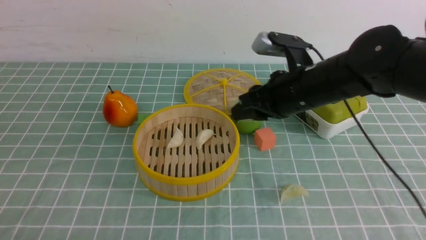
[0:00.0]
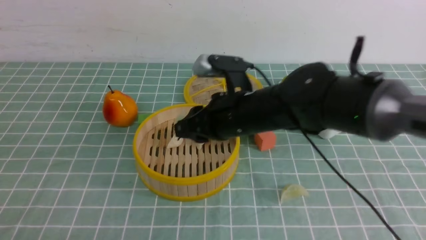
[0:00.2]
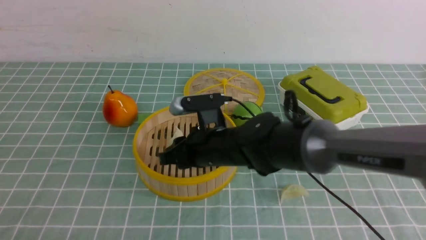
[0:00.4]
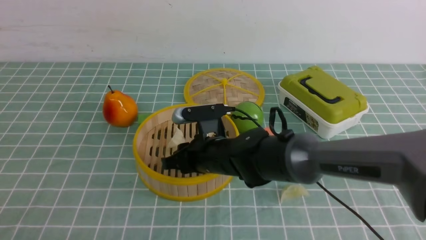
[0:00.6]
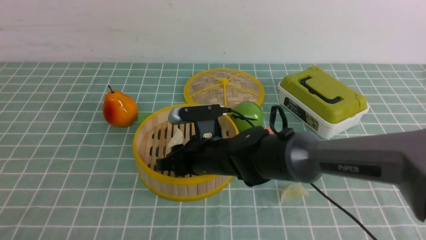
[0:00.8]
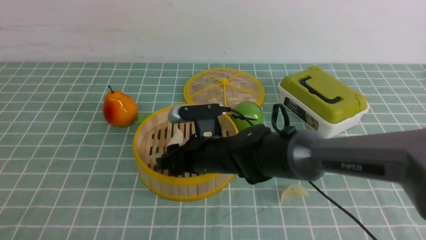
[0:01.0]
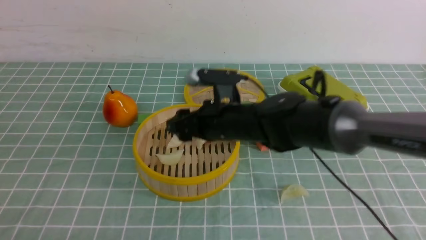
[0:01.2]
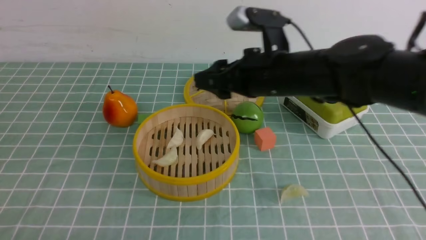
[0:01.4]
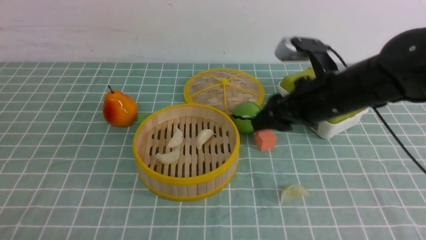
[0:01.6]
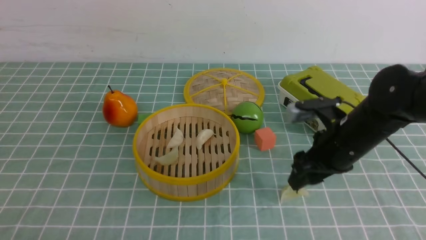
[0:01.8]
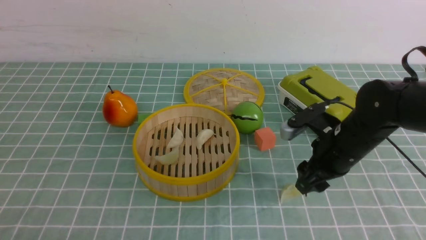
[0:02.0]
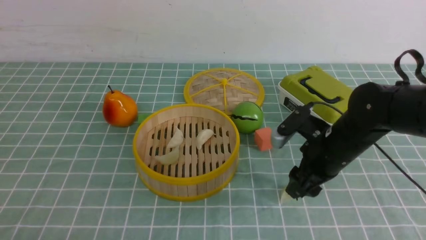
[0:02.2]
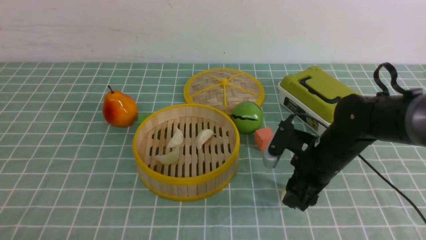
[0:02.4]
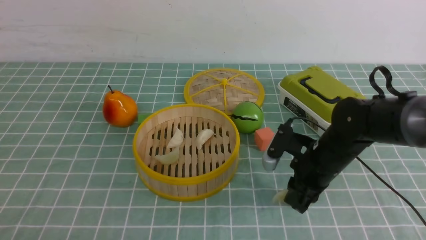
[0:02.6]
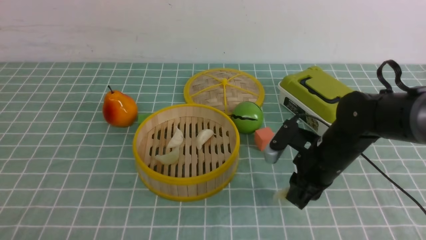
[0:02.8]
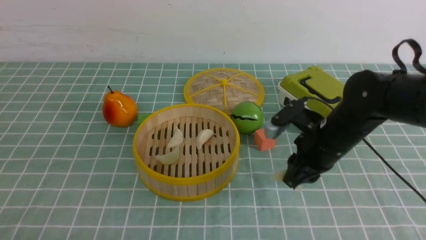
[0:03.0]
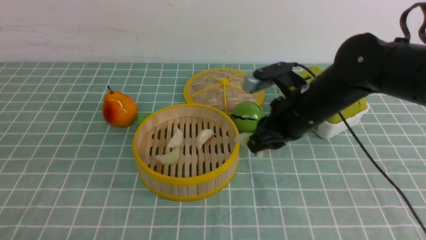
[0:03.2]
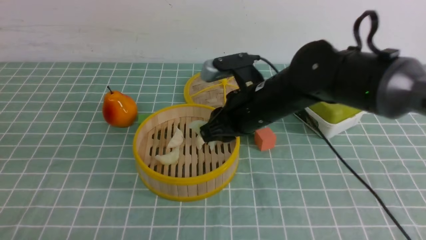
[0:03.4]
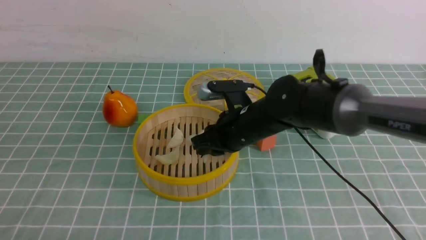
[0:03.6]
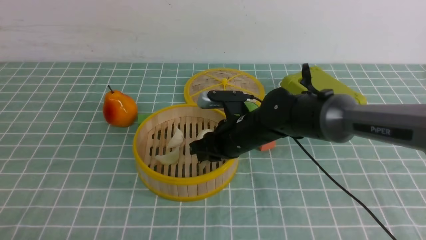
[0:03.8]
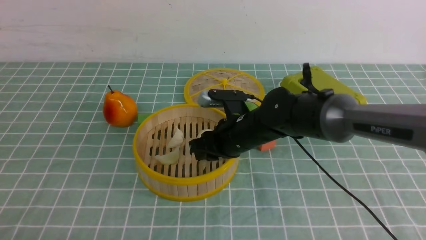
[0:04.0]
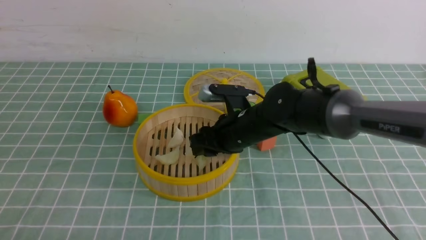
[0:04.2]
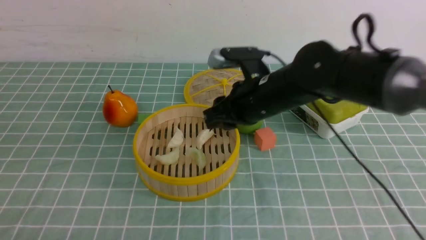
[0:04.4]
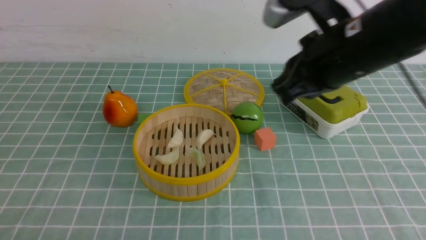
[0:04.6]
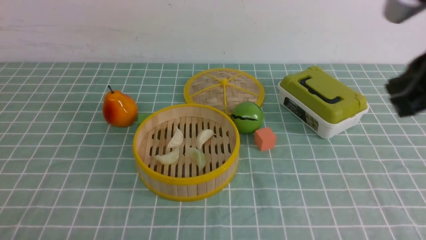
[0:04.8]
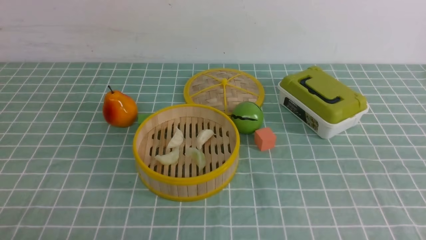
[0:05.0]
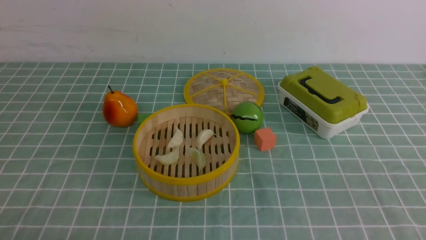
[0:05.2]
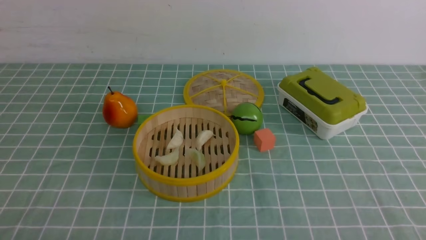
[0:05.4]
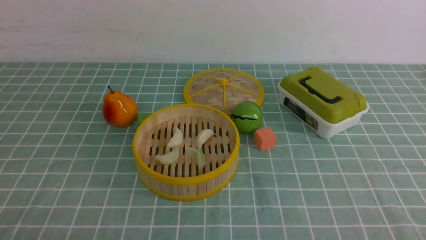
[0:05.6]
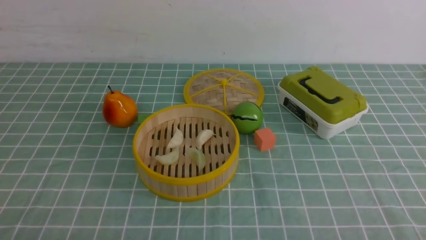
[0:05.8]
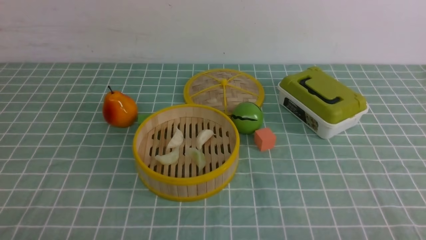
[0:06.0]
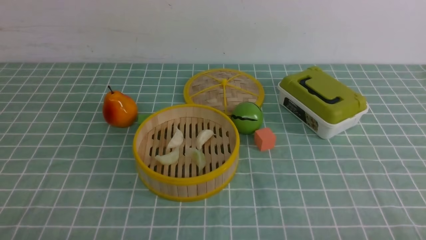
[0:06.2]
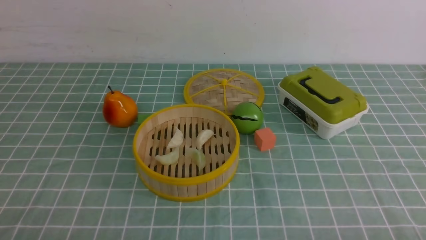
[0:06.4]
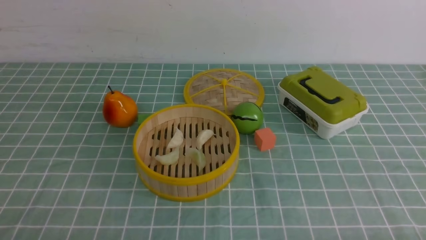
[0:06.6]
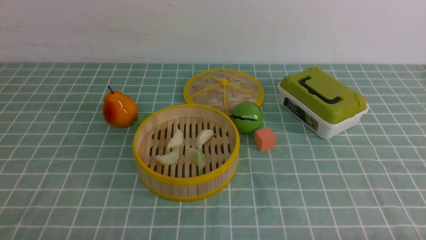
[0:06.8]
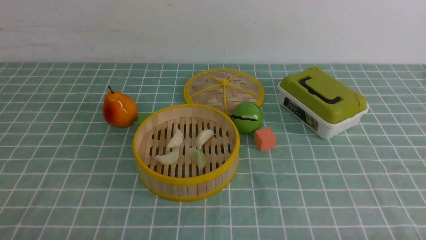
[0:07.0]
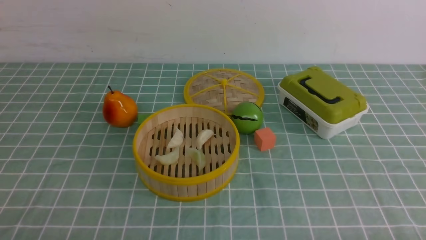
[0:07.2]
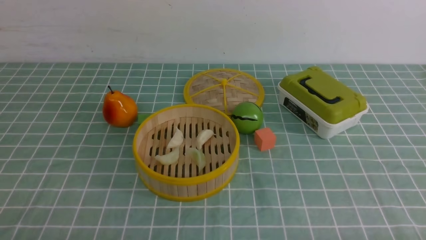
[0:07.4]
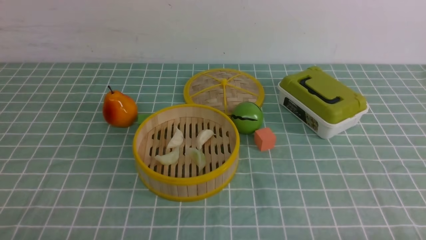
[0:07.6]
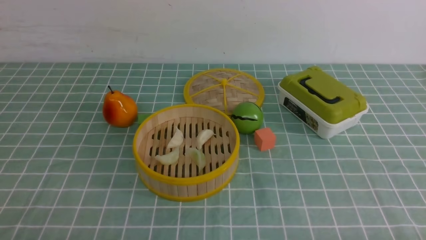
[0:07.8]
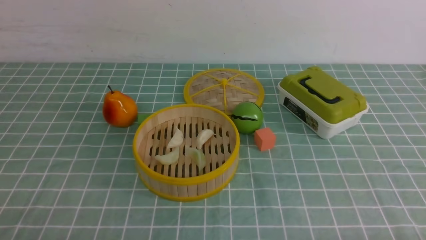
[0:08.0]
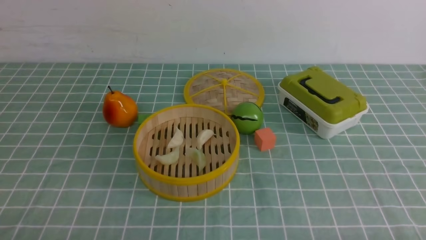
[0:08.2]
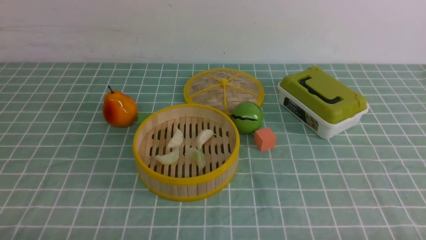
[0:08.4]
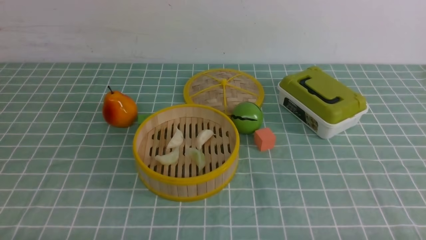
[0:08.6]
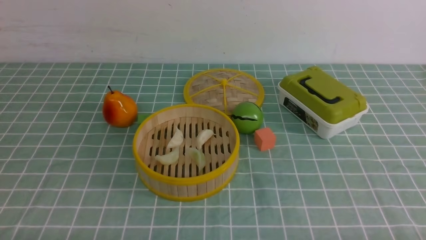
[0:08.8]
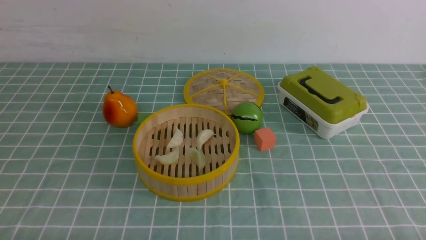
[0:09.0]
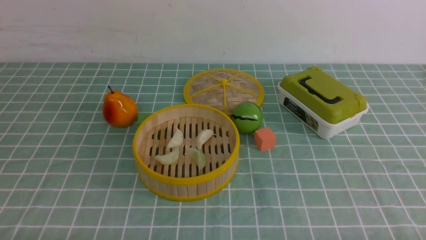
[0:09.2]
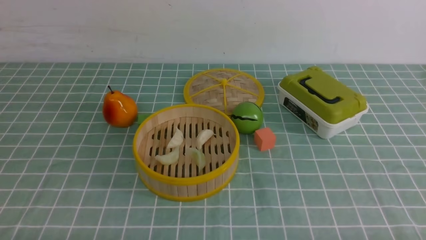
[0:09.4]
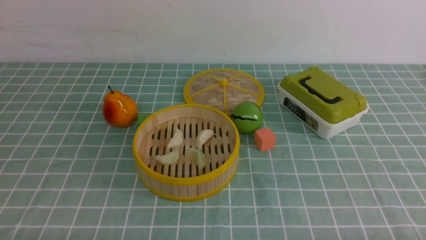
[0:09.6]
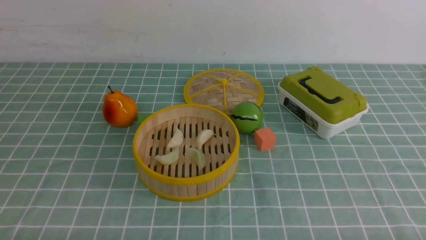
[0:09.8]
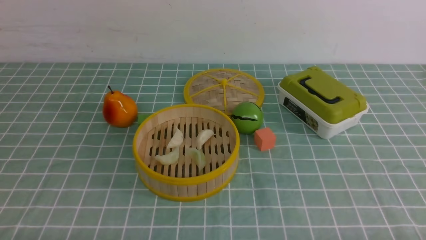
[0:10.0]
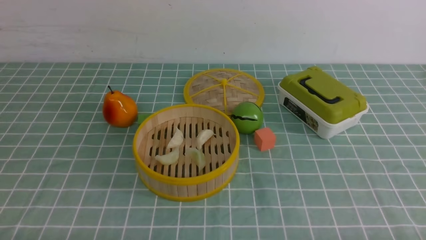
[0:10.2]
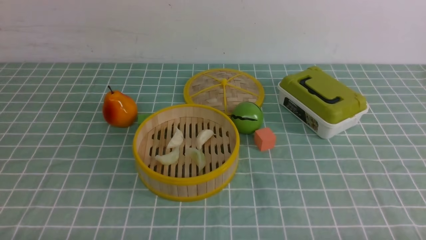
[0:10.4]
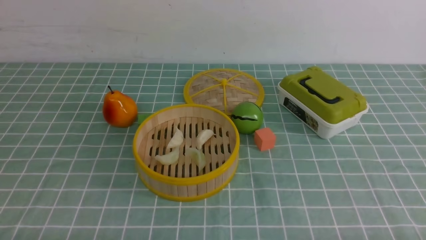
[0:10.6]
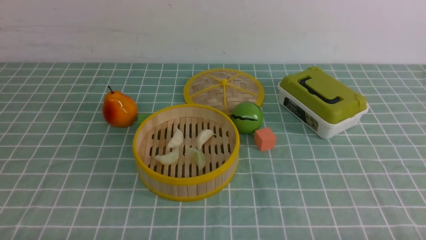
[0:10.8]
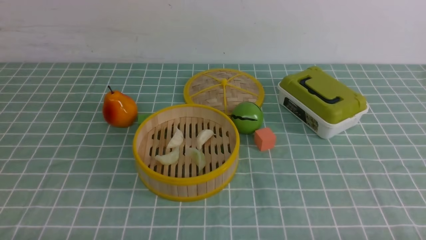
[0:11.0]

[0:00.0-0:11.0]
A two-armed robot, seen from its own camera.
Task of the whole recording: put the dumplings into the steamer on the table with the blue tablecloth.
Step, 0:00.0 to 0:01.2: use the right arm to put the dumpling into the steamer.
Step, 0:01.4 to 0:02.4: use the right arm to grab a dumpling.
Step, 0:02.8 to 0:04.2: use the right arm to put the dumpling into the steamer.
0:00.0 to 0:01.6: The right gripper travels to the left and back again, some 10 cm each way, and opens its fingers.
0:01.6 to 0:03.2: The right gripper goes downward and returns, some 10 cm each way, and closes.
0:03.2 to 0:04.8: The right gripper shifts about 25 cm backward, upward and to the right, and closes its fingers.
0:04.8 to 0:06.2: The right gripper shifts approximately 25 cm downward and backward.
0:09.4 to 0:11.0: Both grippers stay about where they are.

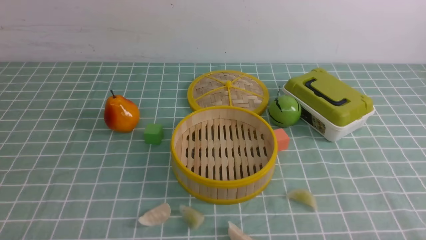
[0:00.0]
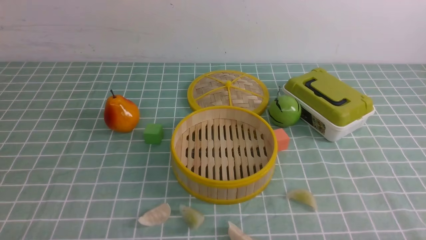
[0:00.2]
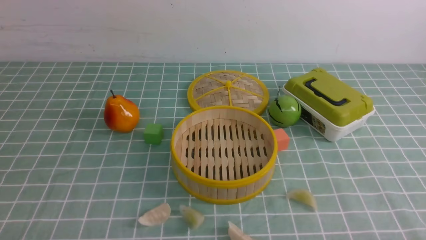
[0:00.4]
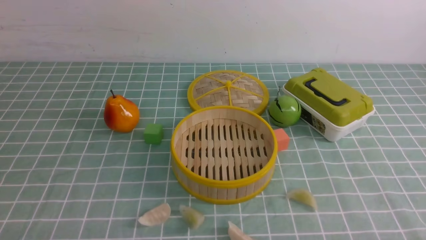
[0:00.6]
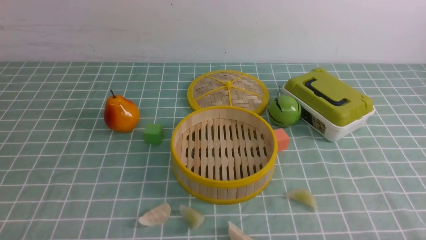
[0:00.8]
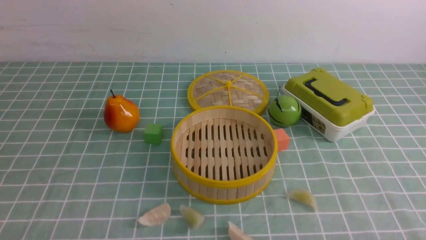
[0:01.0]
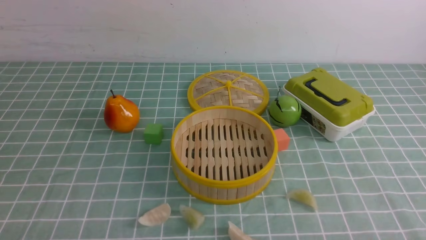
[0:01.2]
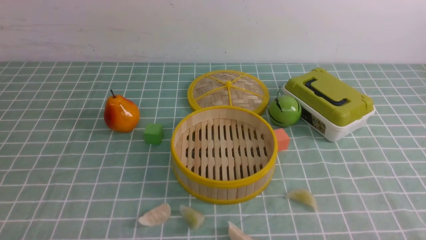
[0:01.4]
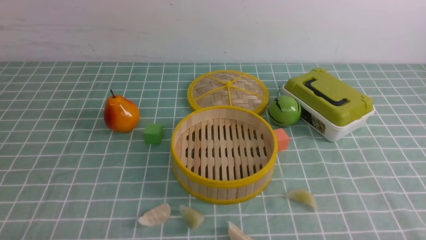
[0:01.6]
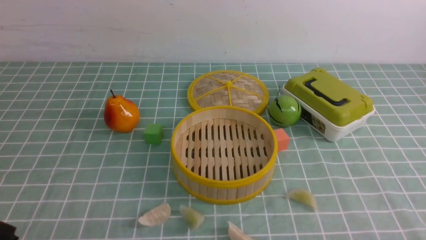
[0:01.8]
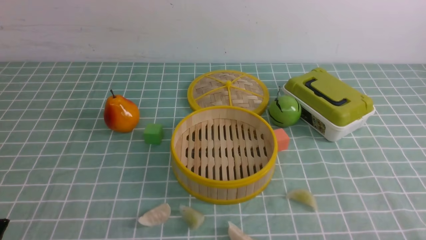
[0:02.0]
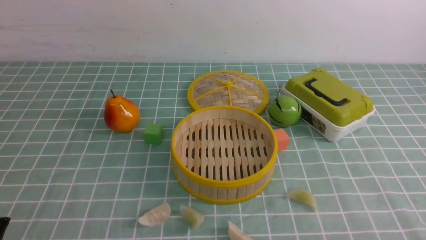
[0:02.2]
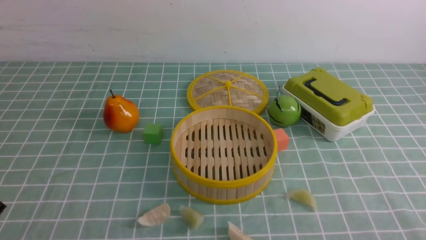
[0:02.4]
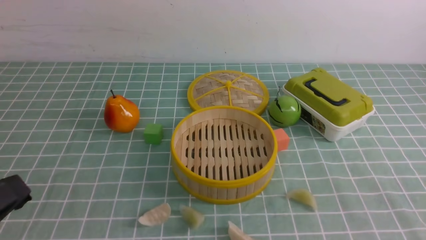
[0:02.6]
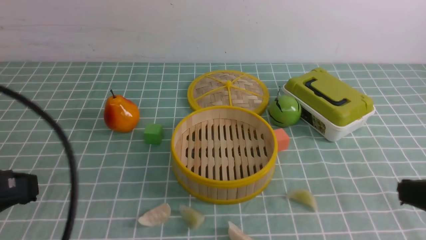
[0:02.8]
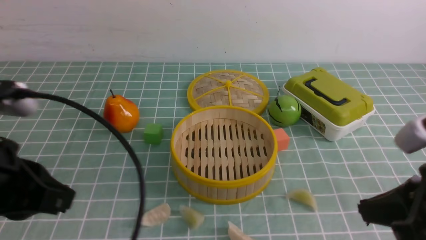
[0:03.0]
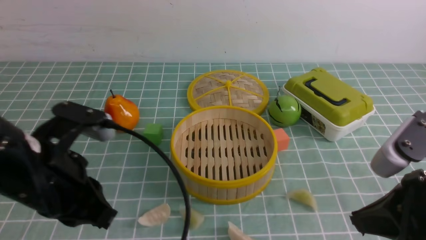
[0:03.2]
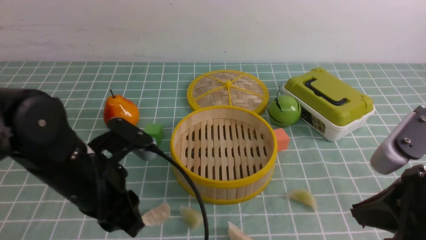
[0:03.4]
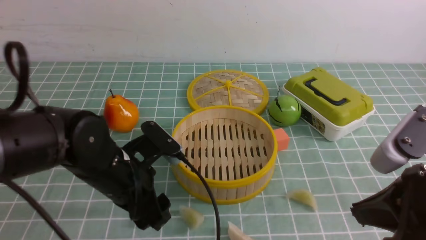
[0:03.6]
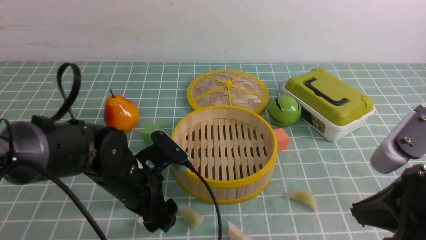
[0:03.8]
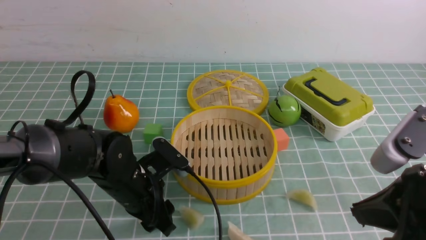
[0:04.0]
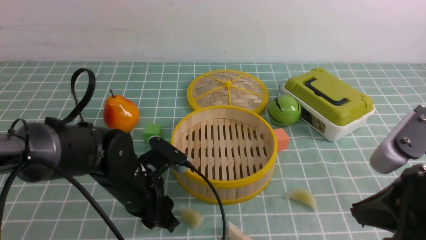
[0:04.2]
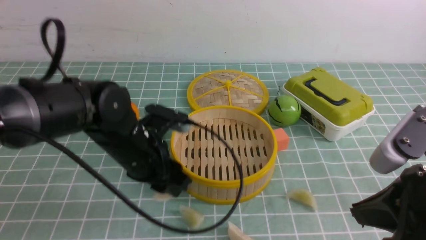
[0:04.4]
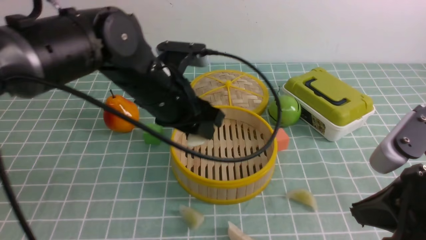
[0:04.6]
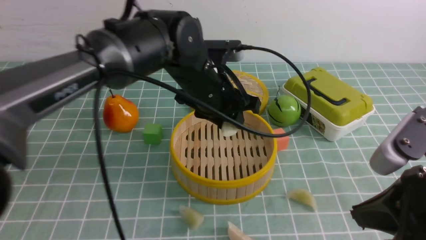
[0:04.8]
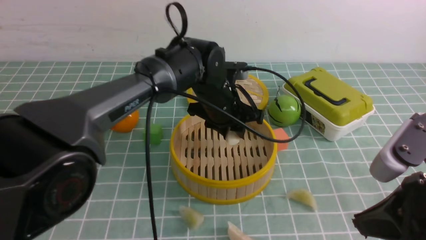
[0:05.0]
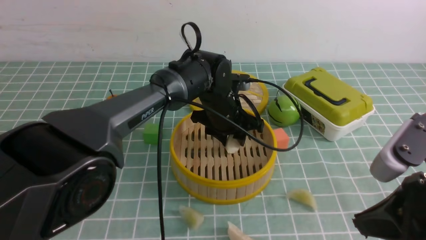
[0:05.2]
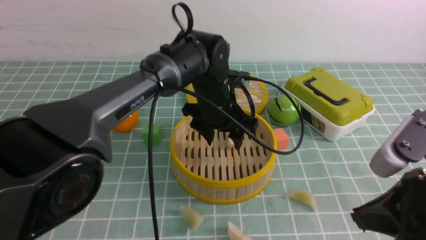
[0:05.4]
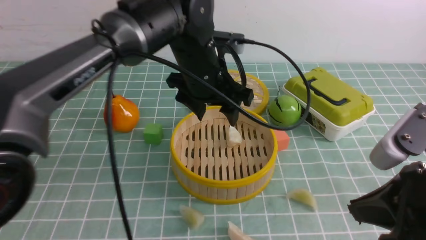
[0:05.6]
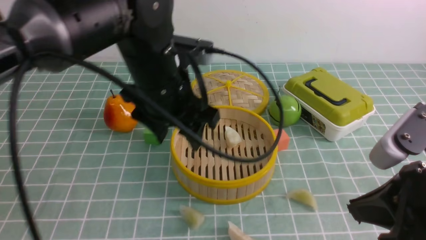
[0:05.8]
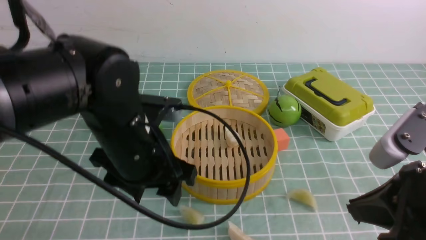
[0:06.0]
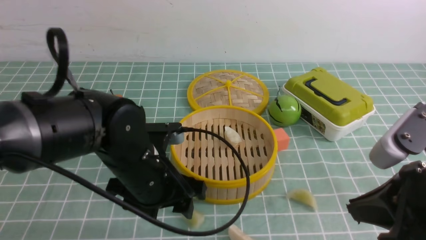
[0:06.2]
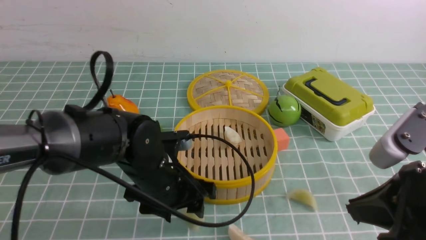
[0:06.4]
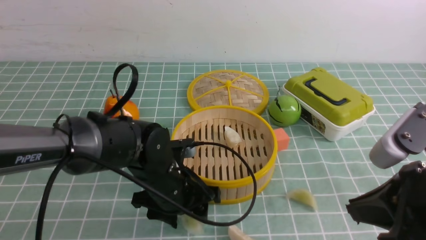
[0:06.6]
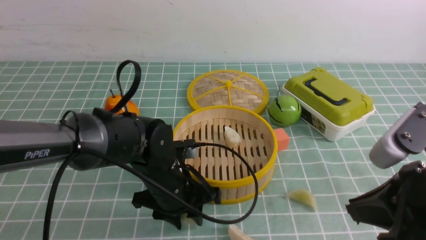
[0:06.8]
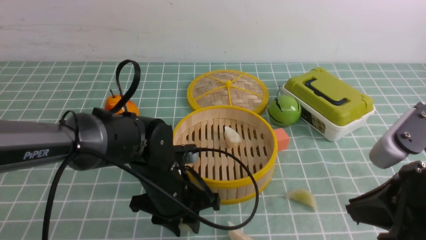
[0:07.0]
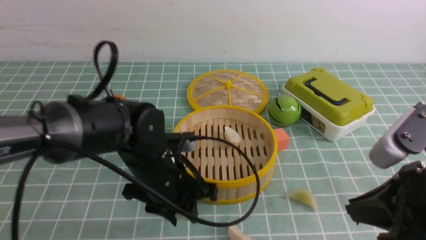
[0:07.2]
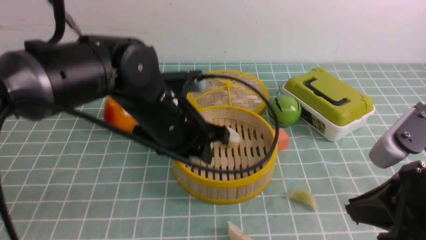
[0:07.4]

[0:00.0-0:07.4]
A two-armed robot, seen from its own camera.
Task of the whole recording: put the dumplings into the steamer on the table with the blue tablecloth.
Step, 0:00.0 to 0:04.6: use the left arm to grab a dumpling.
Step, 0:04.8 to 0:05.6: use the left arm to put the dumpling into the steamer.
Step, 0:05.8 to 0:07.2: use the left arm to grab a dumpling.
0:01.4 to 0:03.0: The left gripper goes about 20 cm upward and forward, and closes. The right gripper heads upward, forward and to the left, covering about 20 cm, and closes up.
0:03.0 to 0:04.4: The left gripper goes about 20 cm forward, to the right and downward, and opens its fingers.
0:04.4 to 0:06.0: The left gripper goes forward and returns, roughly 10 cm each way, and opens.
0:06.0 to 0:07.4: The left gripper moves some 10 cm downward and comes back, and closes up.
